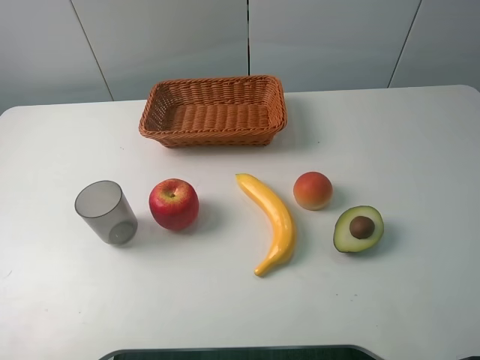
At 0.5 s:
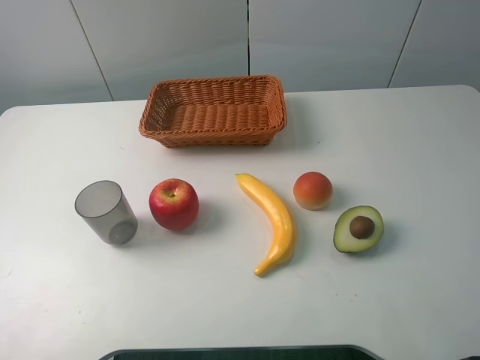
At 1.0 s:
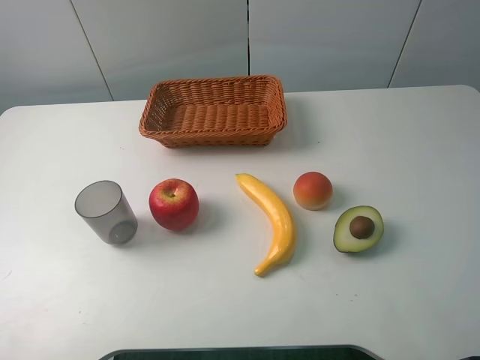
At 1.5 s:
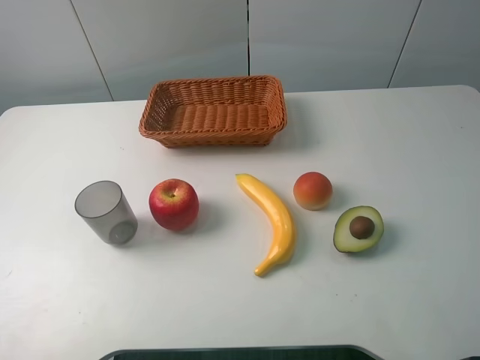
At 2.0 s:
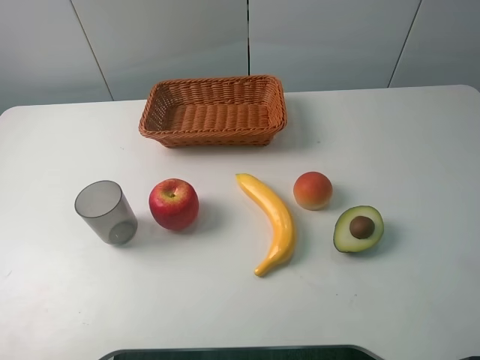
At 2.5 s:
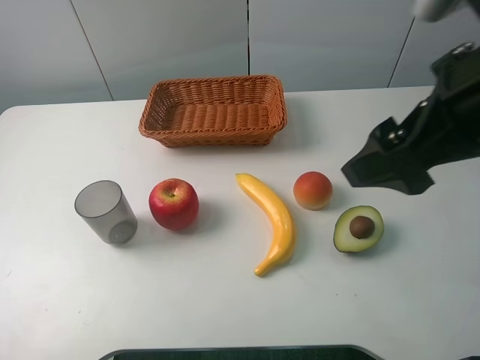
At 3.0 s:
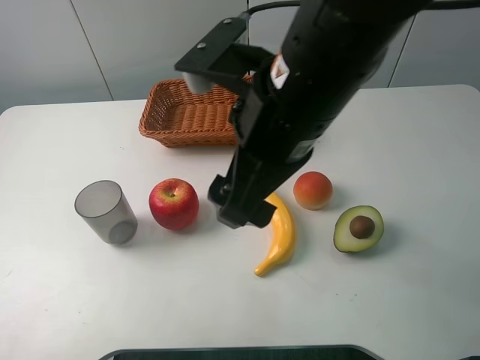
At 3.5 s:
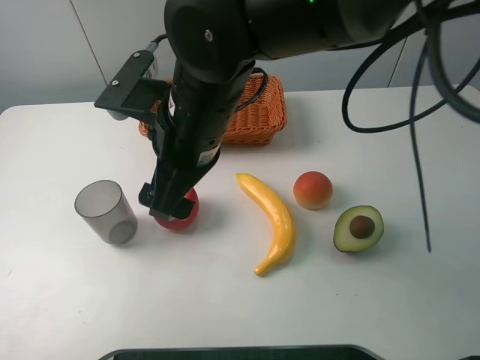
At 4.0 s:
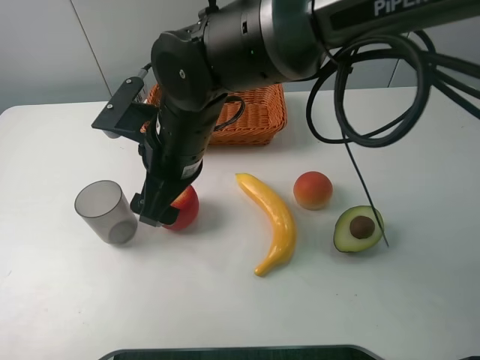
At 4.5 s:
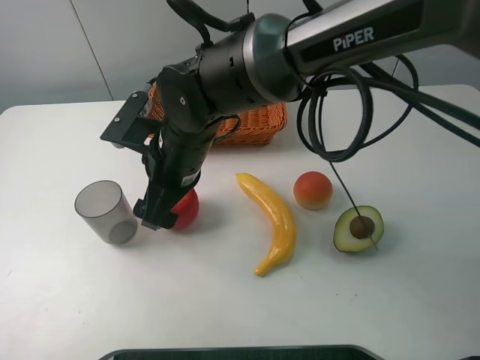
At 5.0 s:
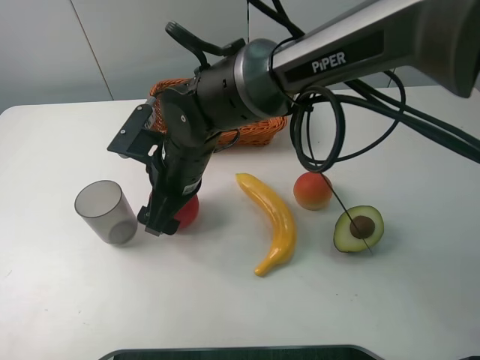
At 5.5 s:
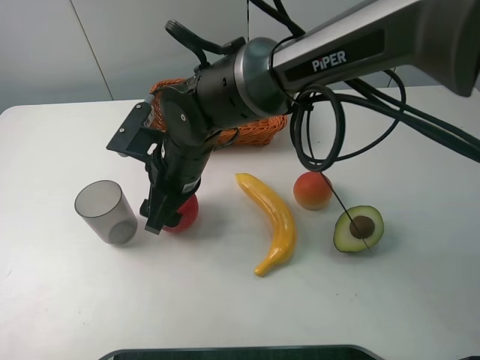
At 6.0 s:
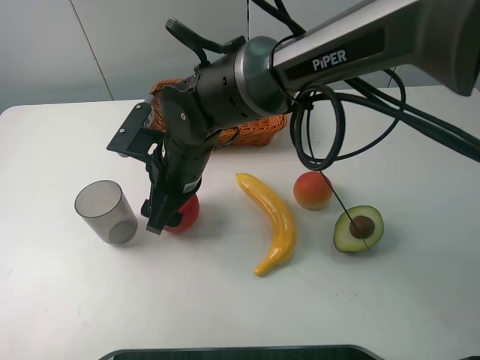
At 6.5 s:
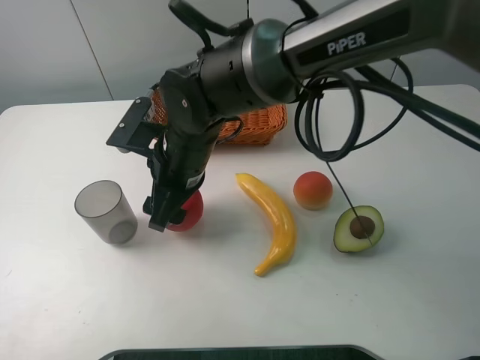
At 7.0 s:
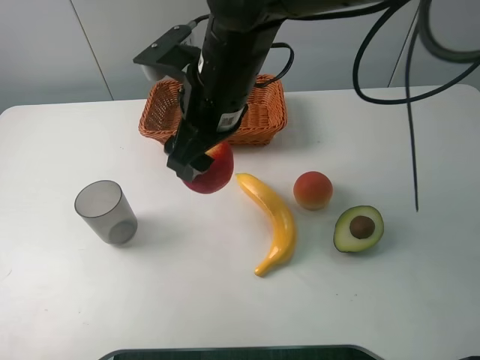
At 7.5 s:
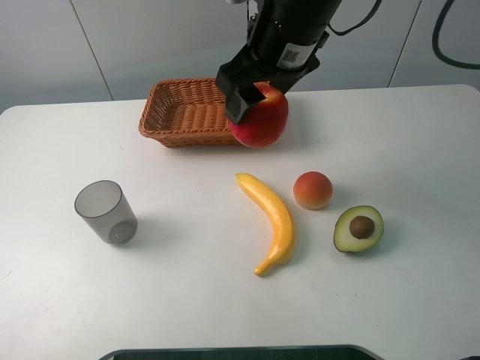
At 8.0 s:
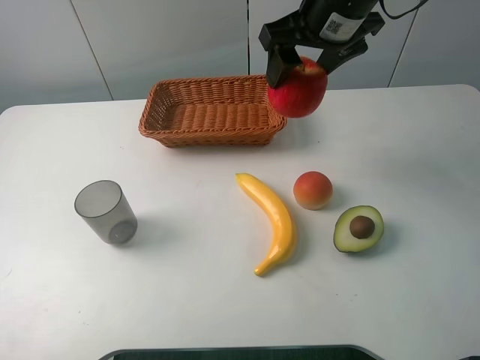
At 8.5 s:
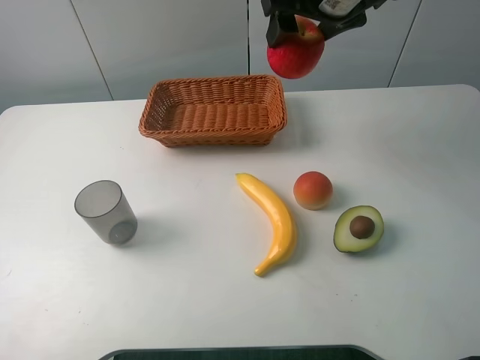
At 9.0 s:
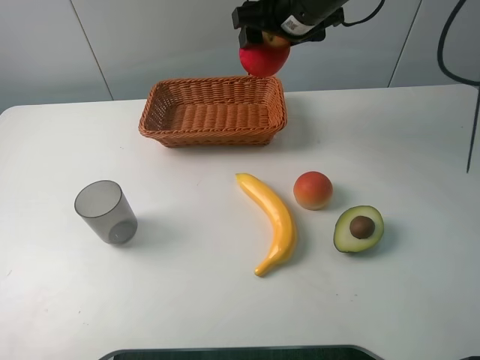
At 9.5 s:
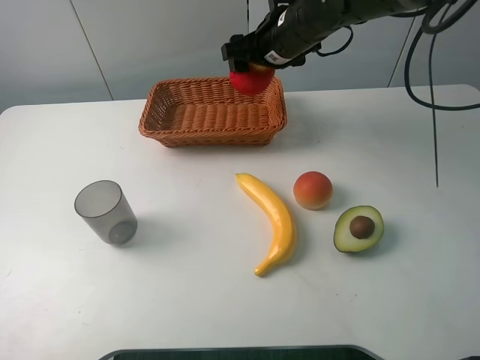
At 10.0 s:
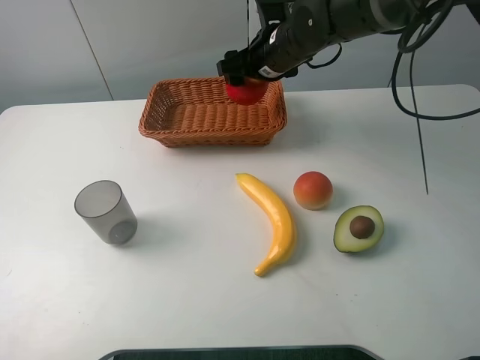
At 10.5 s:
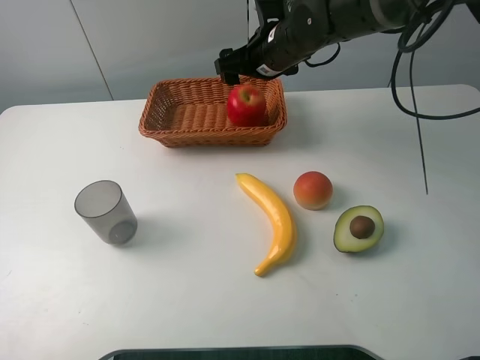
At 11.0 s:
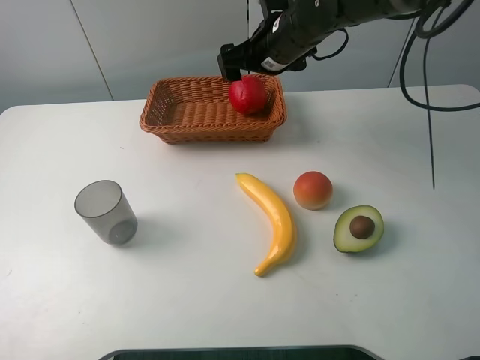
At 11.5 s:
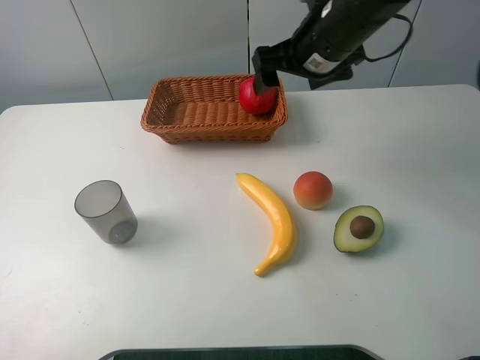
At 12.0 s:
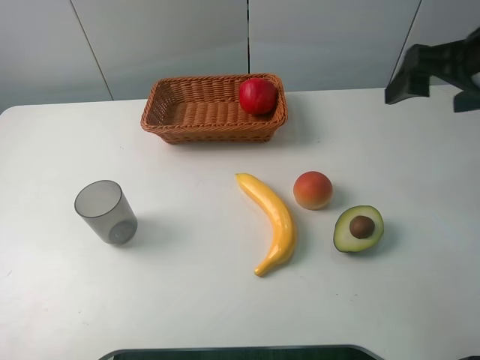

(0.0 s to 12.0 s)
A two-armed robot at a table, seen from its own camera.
Task of the whole recording: randomly pick up an item from the table and put it in the basket.
Step, 0.0 s - 6.0 s: Grasp the apple with the right gripper.
Step, 6.5 s - 11.0 s: Place the apple into the basket with the right gripper.
2.0 s - 4.0 s: The right gripper moves to the left, forward and downward, approximately 40 cm.
4.0 s - 6.0 s: The right gripper ends up about 5 cm from where it was, and closes its fingers.
6.0 s - 8.0 s: The right gripper shifts roughly 25 cm to the right, upward and forward.
8.0 s - 10.0 s: The right gripper goes roughly 15 cm downward, forward and to the left.
10.0 s - 12.0 s: The right gripper goes approximately 30 cm to the right, backward and upward, and opens up.

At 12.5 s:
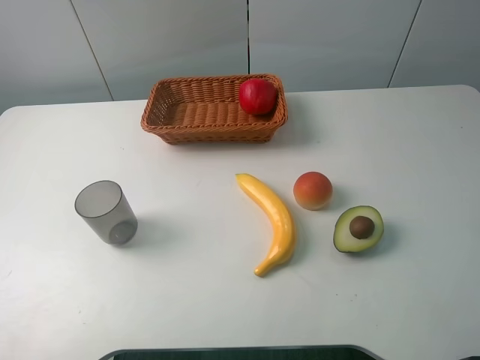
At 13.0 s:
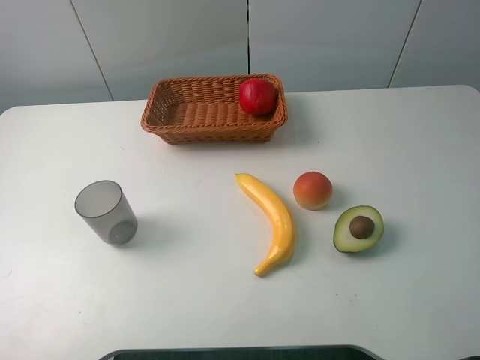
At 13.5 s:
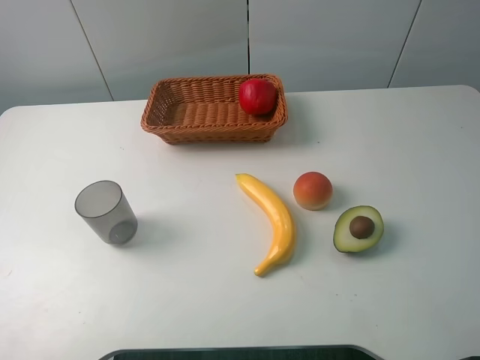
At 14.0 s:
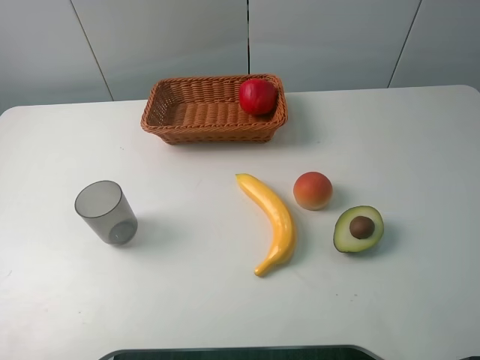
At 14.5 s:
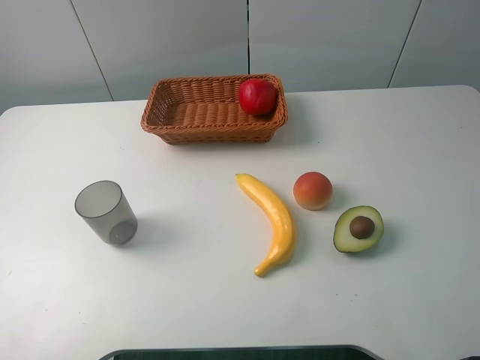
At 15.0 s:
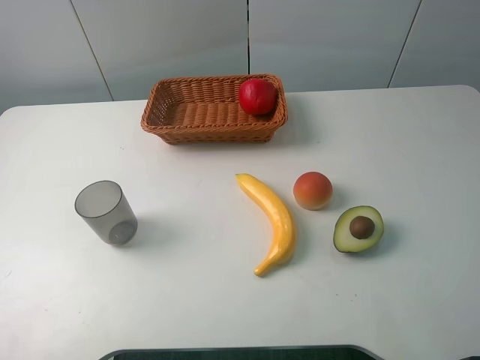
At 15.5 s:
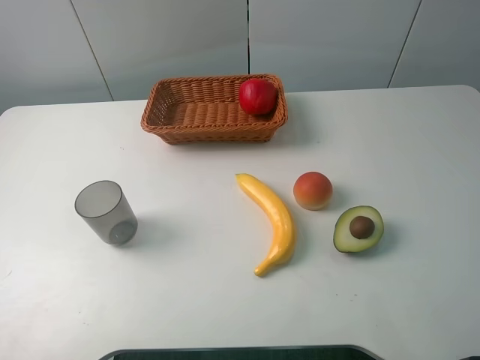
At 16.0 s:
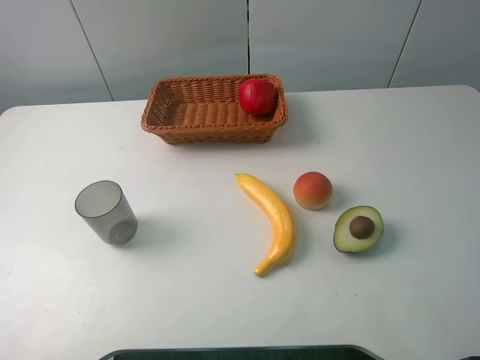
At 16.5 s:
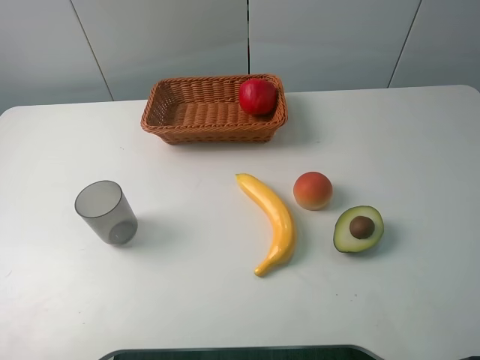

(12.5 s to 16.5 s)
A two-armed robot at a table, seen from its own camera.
Task of the whole recording: randomly pick up an item from the table and put it in the basket.
14.5 s - 16.5 s: Both grippers stay put.

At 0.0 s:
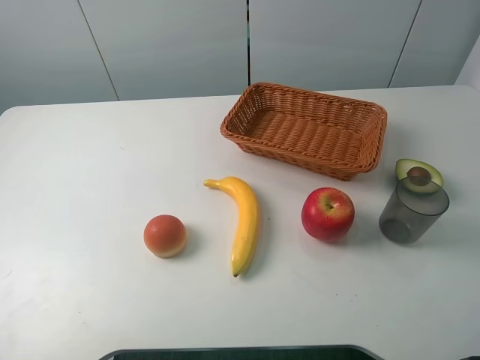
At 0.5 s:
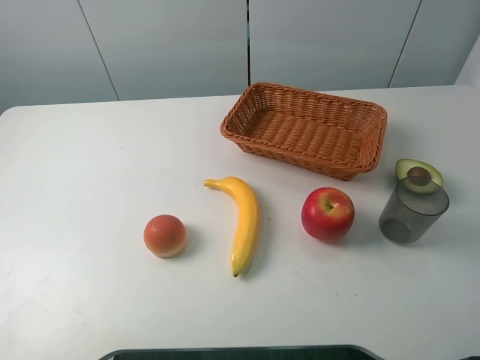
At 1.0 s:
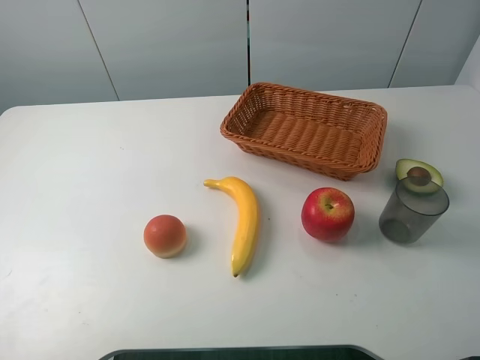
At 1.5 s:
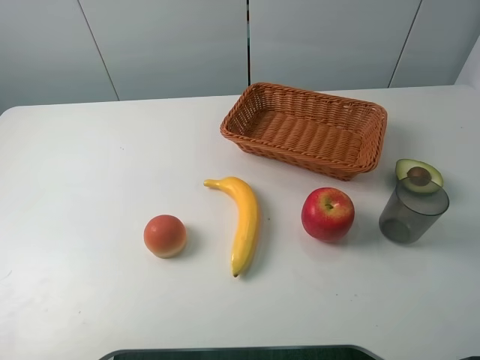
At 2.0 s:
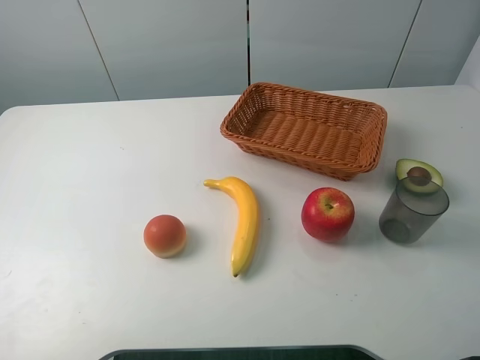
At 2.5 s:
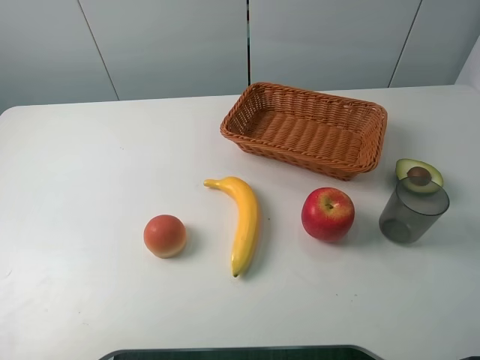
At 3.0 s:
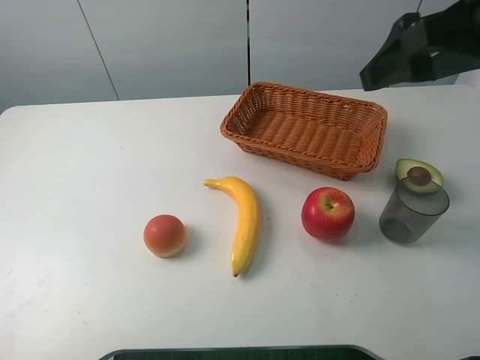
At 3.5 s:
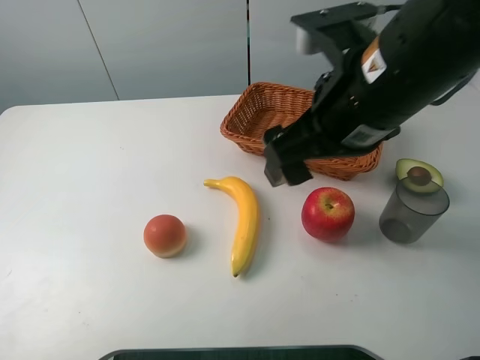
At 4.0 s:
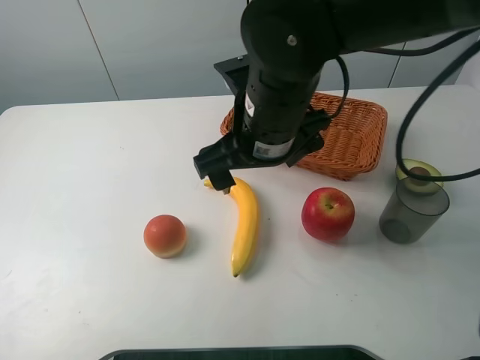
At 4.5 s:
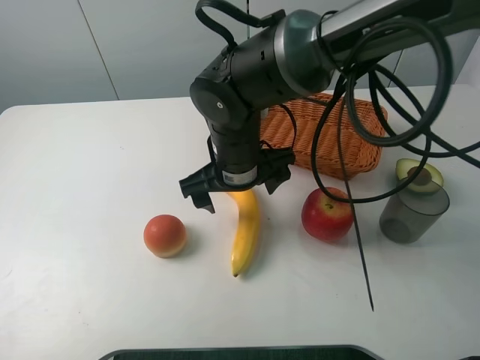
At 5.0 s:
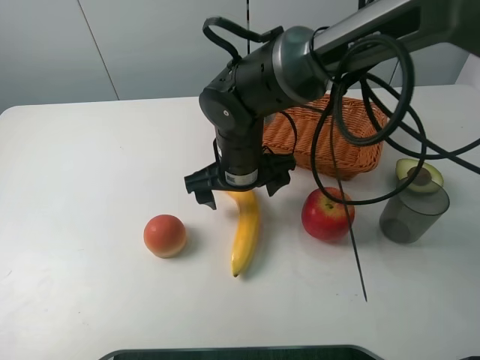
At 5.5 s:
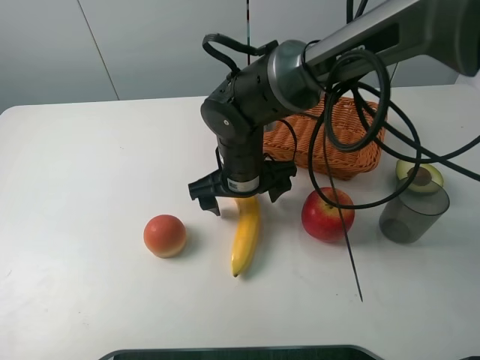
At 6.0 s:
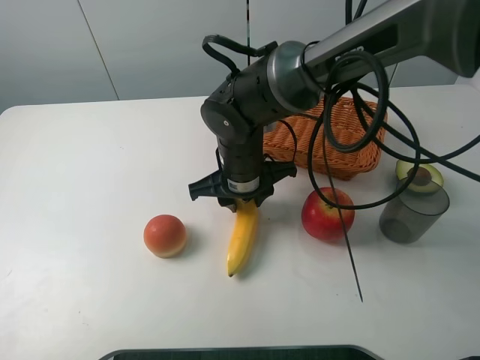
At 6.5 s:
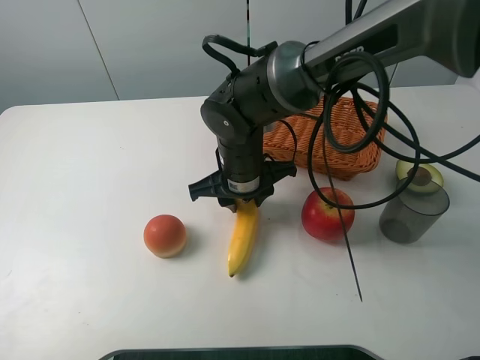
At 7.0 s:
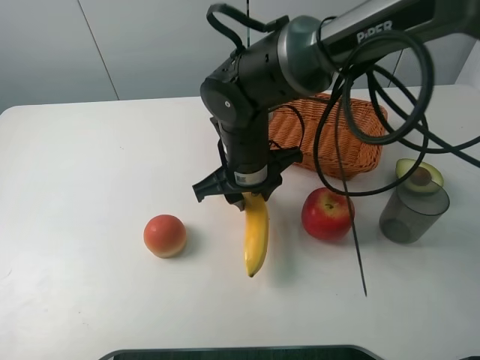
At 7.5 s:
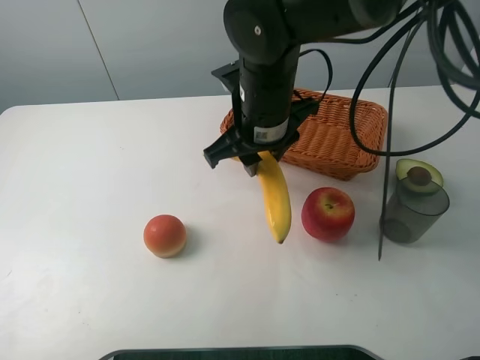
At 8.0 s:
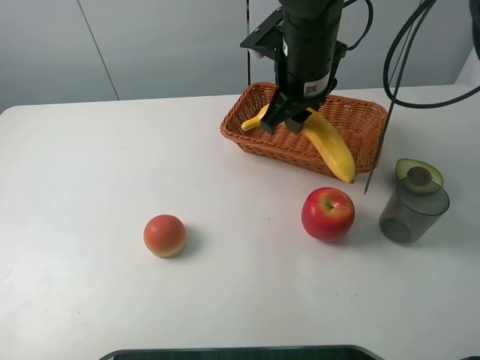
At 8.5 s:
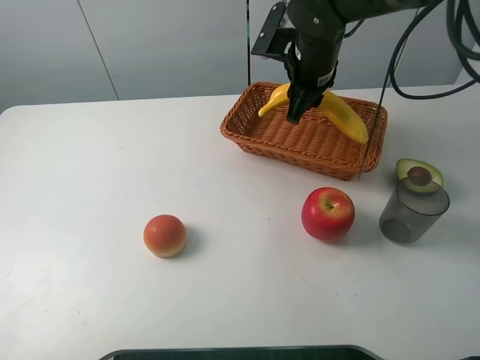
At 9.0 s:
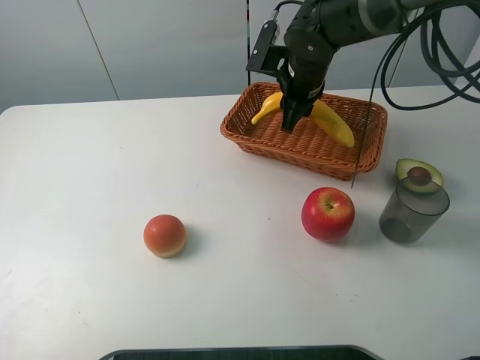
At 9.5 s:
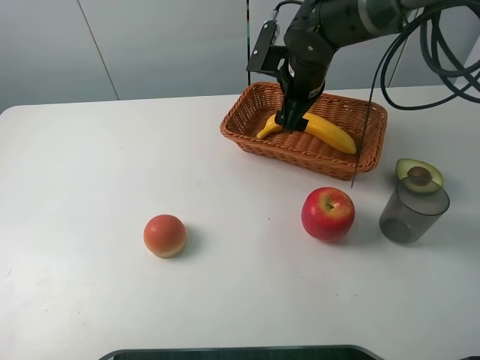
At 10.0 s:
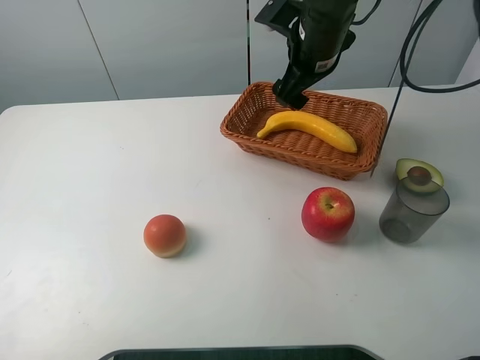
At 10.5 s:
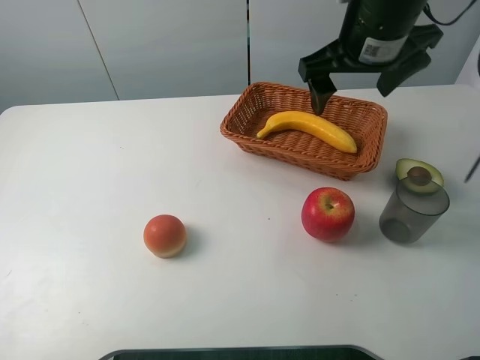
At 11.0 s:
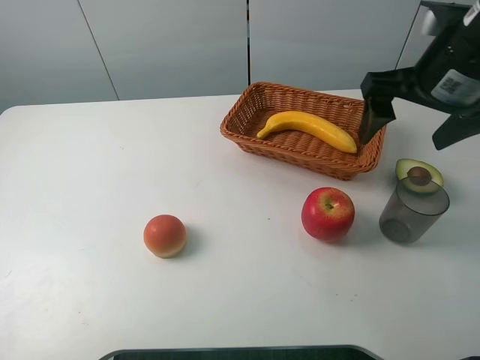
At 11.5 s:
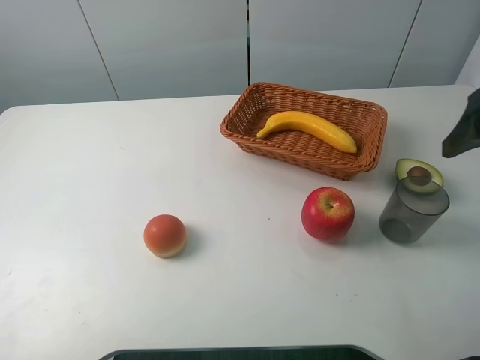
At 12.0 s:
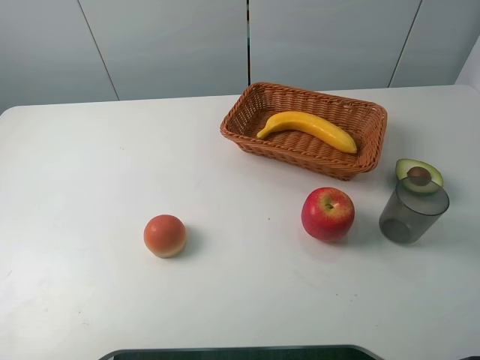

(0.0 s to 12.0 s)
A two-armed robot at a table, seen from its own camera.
Task of the whole recording: randomly pick up an item from the table and put it in the basket.
Step, 0.0 s - 6.0 s: Grasp the banana with the right gripper.
Step, 6.5 s - 10.0 s: Place the banana into the basket with the right gripper.
2.0 s - 4.0 s: The right gripper goes roughly 35 cm to the left and forward.
4.0 s - 6.0 s: The right gripper moves downward, about 10 cm, and closes its fingers.
6.0 s - 8.0 s: The right gripper goes some 15 cm upward, to the right and forward.
8.0 s - 10.0 s: The right gripper opens up.
10.0 s - 12.0 s: The right gripper goes roughly 35 cm backward and to the right.
